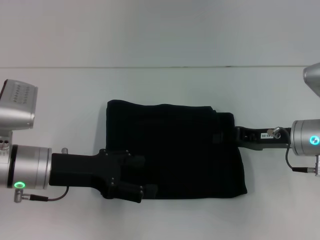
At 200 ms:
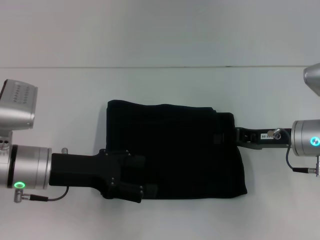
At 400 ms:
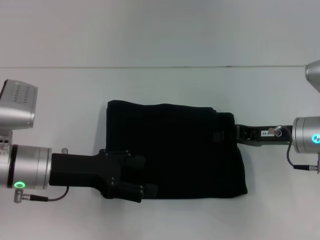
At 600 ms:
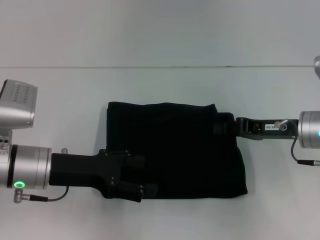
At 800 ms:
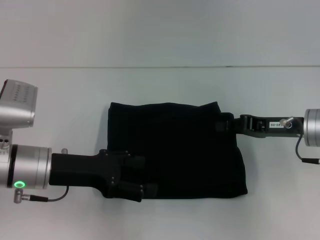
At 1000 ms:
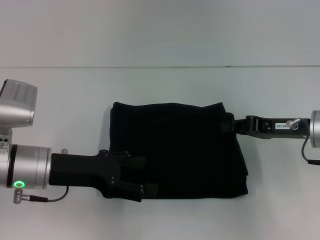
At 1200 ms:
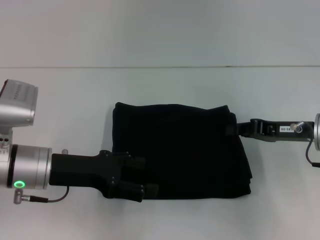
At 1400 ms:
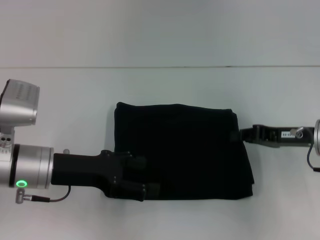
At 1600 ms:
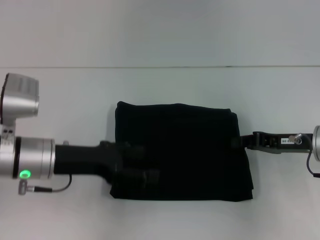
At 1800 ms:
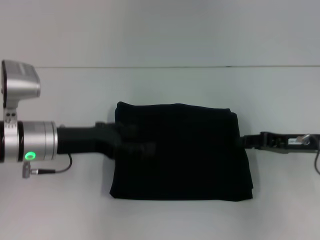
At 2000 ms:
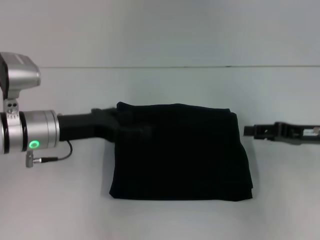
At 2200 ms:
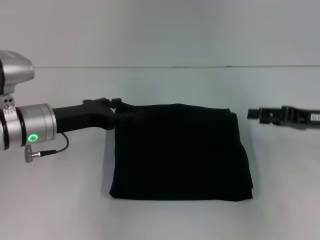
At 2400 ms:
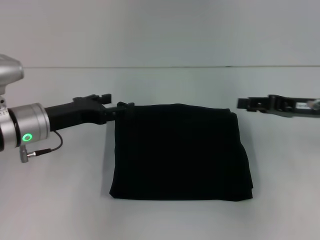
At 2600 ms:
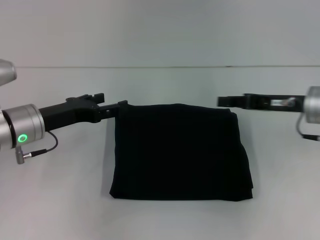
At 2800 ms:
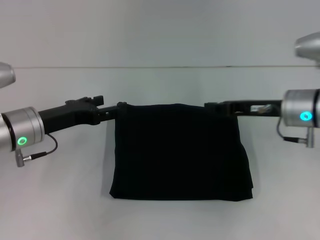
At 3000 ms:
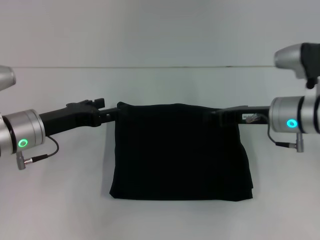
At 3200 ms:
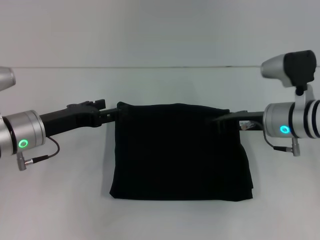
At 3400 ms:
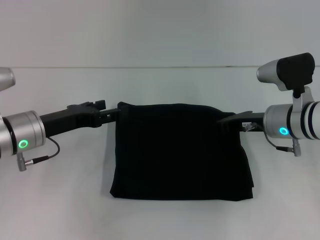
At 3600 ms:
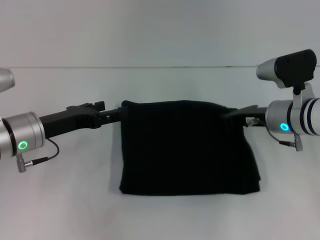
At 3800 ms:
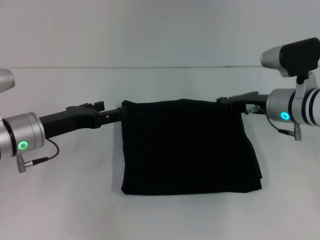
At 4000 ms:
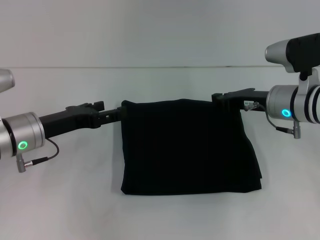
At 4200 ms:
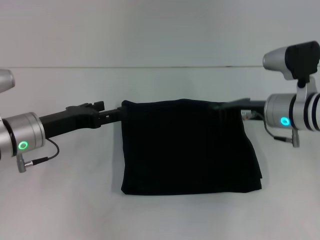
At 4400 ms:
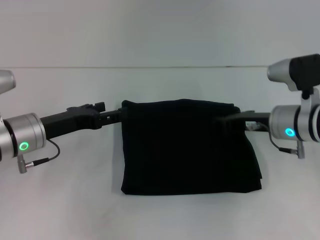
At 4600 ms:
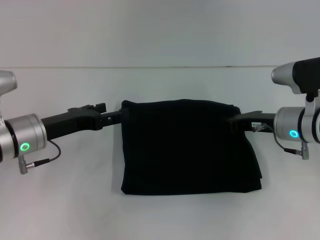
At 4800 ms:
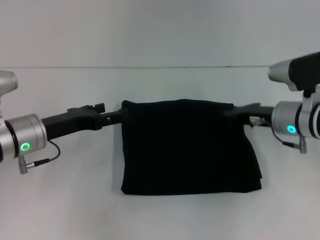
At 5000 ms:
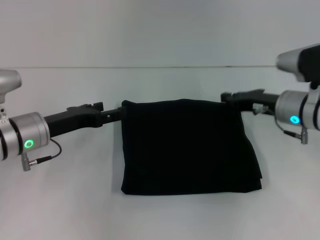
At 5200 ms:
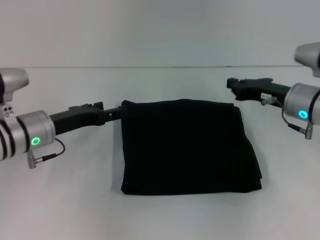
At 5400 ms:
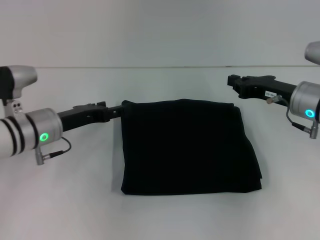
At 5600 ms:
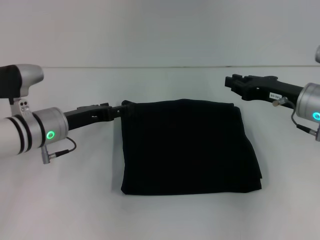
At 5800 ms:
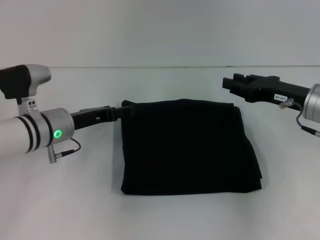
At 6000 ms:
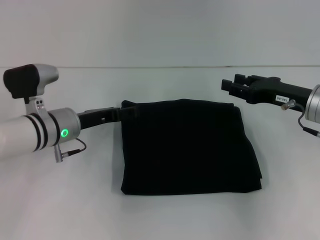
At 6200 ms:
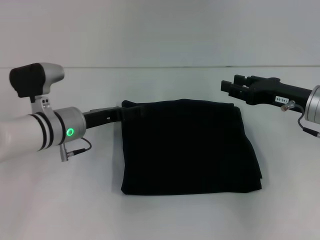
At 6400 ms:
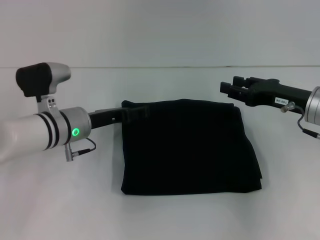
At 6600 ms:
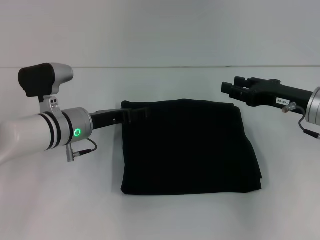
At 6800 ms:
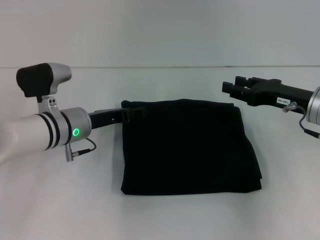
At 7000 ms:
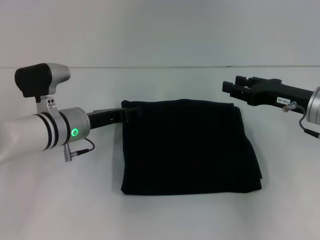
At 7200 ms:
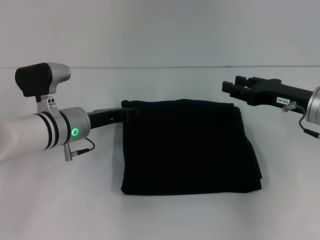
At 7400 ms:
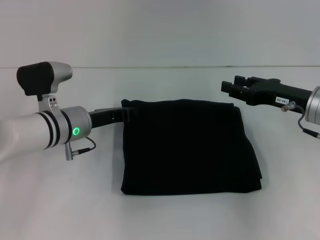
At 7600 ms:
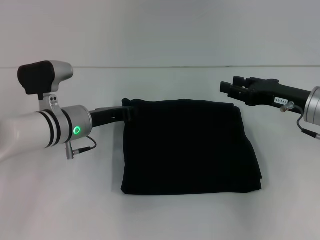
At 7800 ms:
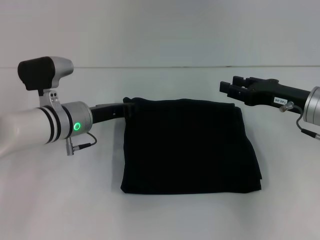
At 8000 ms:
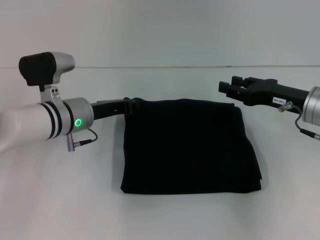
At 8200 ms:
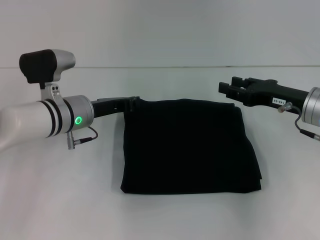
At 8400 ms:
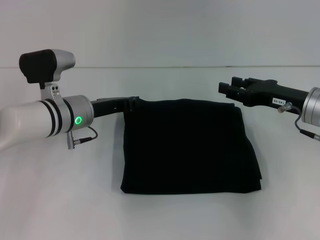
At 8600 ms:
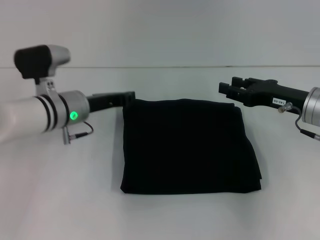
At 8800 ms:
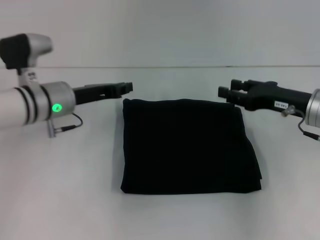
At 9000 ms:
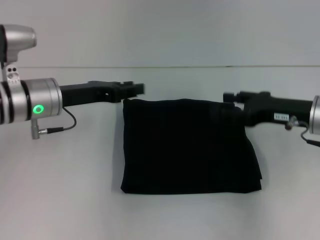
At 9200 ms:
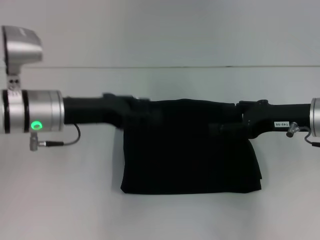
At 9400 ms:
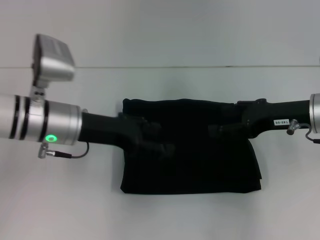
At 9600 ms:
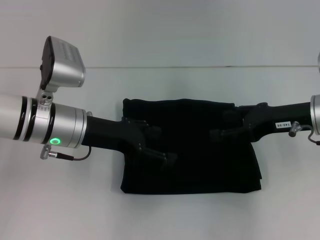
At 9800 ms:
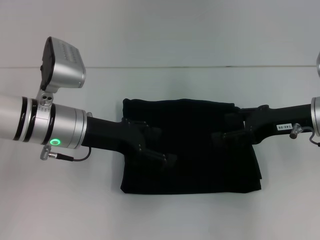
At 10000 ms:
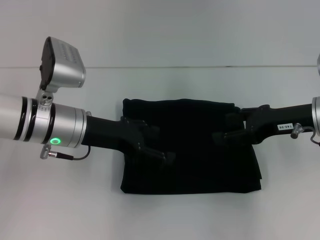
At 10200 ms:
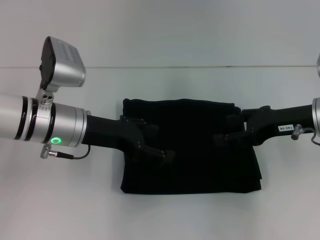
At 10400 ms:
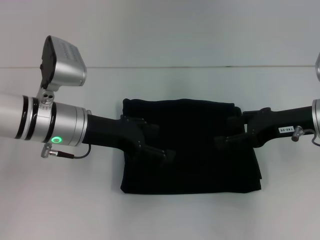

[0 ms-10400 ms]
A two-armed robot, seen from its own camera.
0 ms to 1400 ms: The right gripper closes its fingers.
1400 ms to 3000 ms: The left gripper moves approximately 5 cm; the right gripper heads to the left, covering some 5 cm, and opens, then closes again.
3000 ms to 4400 ms: The grippers make only small movements.
4400 ms to 6000 ms: The right gripper shifts by approximately 5 cm, and opens its fingers, while the left gripper shifts by approximately 5 cm.
6000 ms to 7400 ms: The left gripper closes.
7400 ms to 9000 ms: The left gripper travels upward by approximately 5 cm.
9000 ms to 10400 ms: The left gripper opens.

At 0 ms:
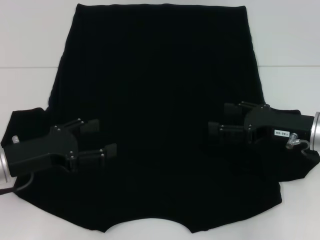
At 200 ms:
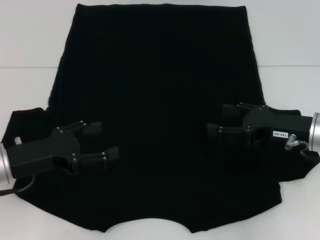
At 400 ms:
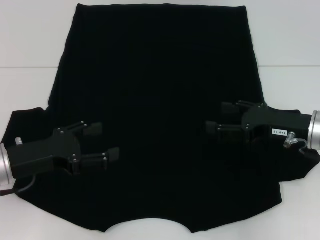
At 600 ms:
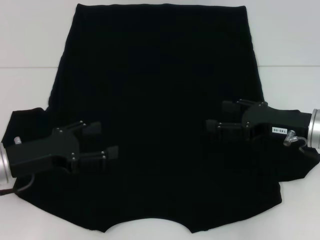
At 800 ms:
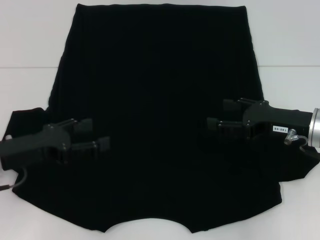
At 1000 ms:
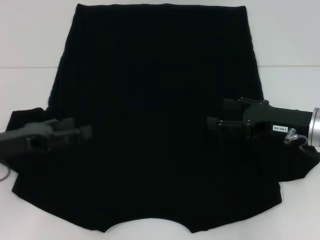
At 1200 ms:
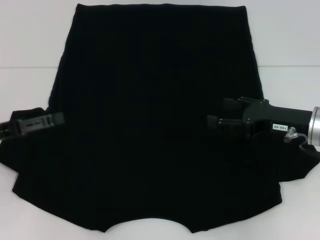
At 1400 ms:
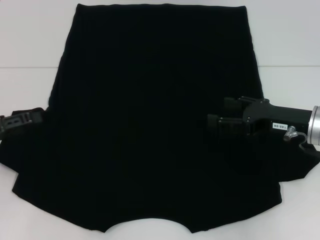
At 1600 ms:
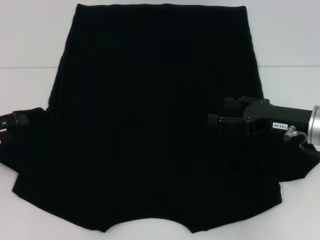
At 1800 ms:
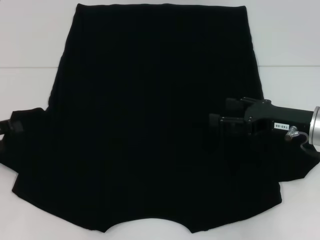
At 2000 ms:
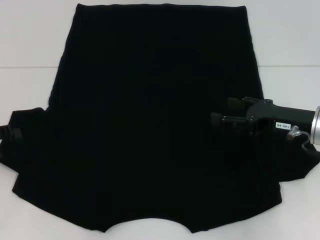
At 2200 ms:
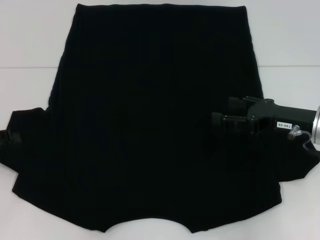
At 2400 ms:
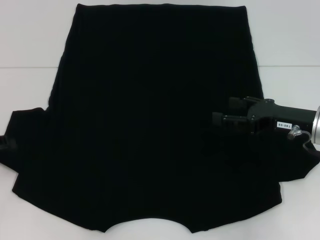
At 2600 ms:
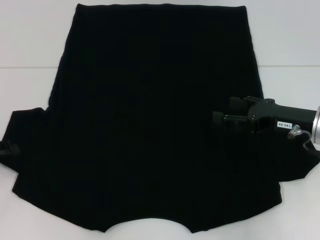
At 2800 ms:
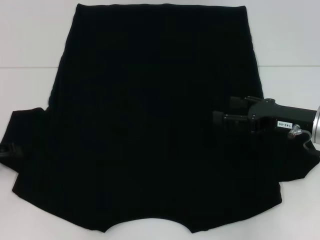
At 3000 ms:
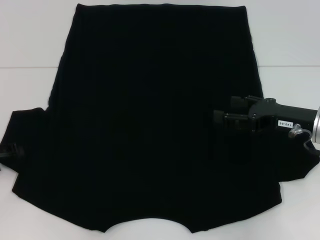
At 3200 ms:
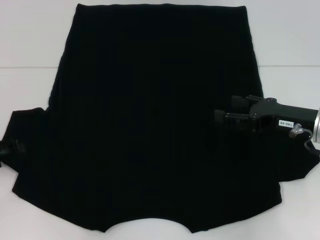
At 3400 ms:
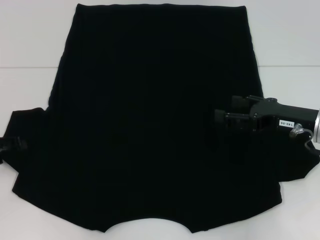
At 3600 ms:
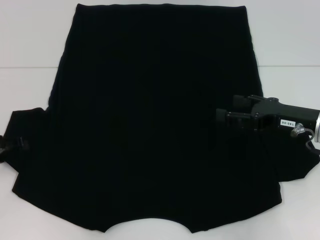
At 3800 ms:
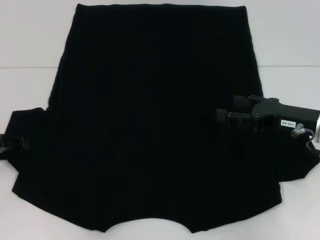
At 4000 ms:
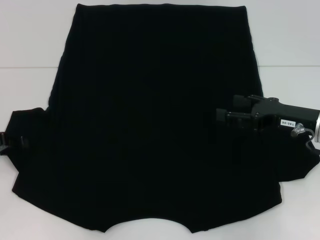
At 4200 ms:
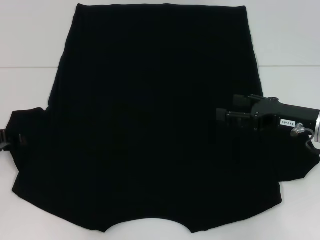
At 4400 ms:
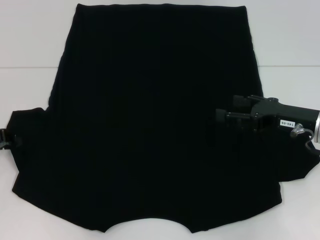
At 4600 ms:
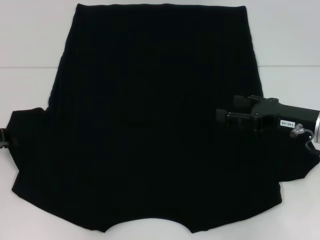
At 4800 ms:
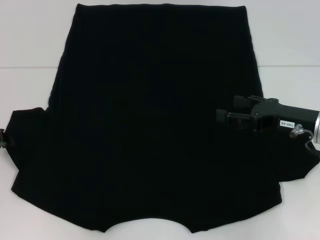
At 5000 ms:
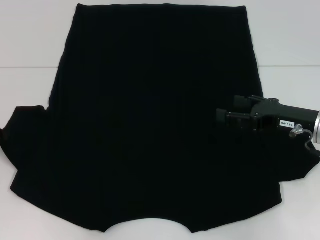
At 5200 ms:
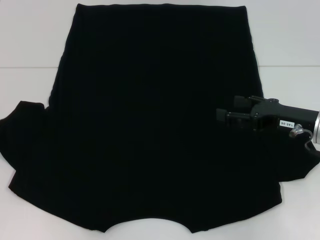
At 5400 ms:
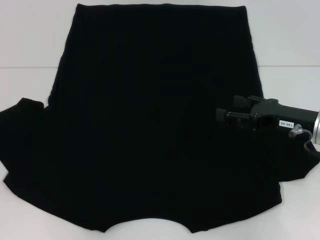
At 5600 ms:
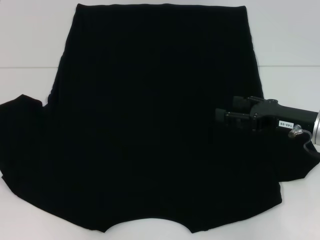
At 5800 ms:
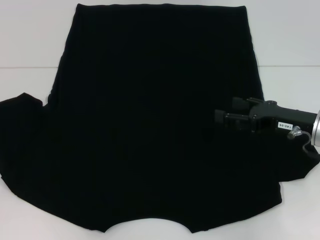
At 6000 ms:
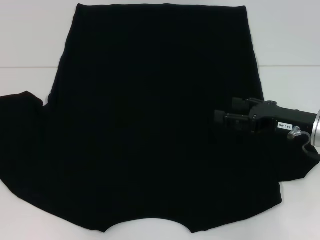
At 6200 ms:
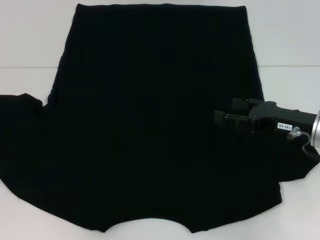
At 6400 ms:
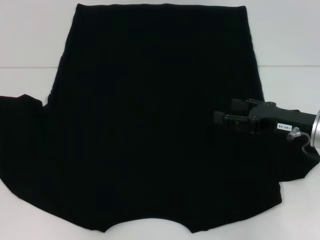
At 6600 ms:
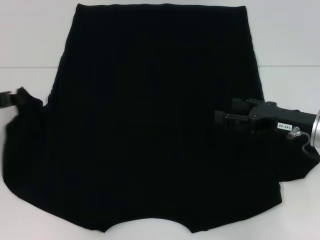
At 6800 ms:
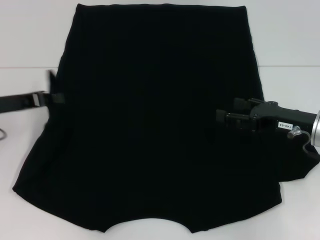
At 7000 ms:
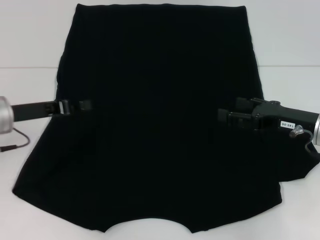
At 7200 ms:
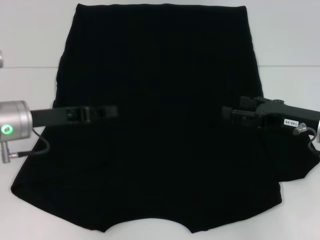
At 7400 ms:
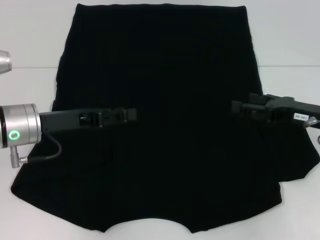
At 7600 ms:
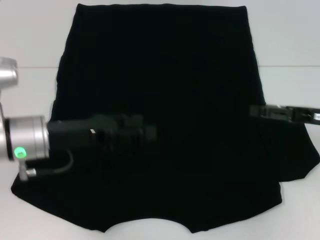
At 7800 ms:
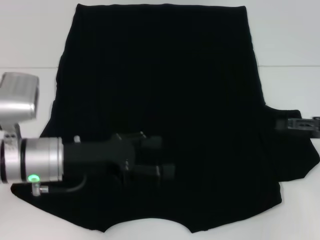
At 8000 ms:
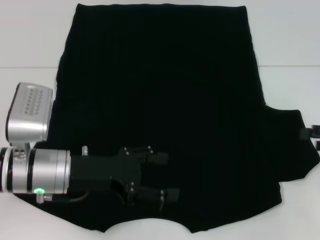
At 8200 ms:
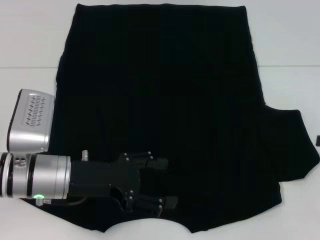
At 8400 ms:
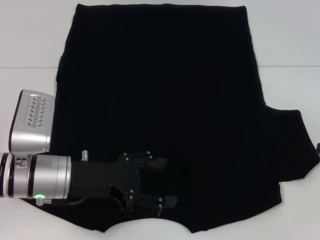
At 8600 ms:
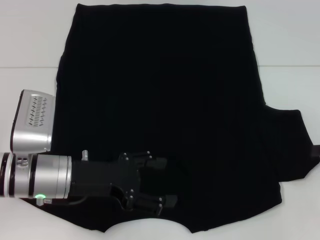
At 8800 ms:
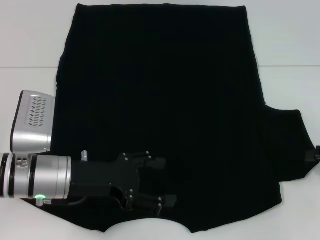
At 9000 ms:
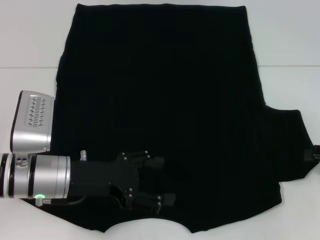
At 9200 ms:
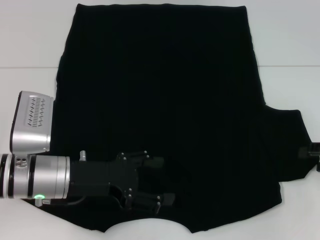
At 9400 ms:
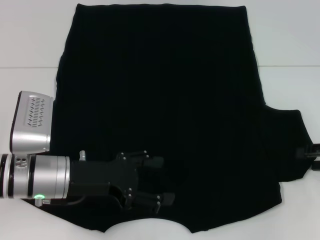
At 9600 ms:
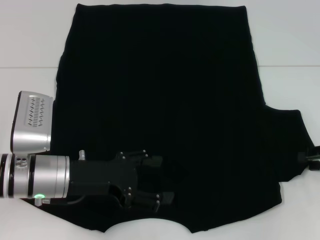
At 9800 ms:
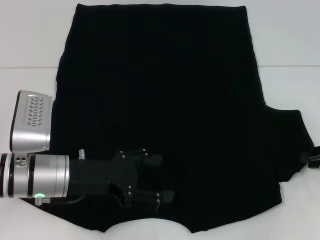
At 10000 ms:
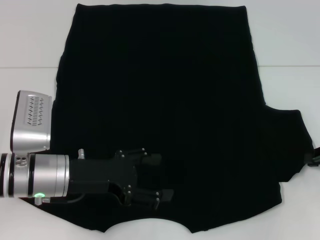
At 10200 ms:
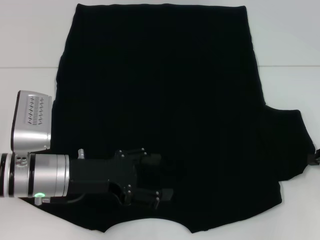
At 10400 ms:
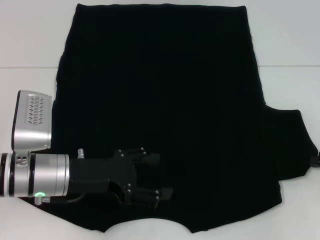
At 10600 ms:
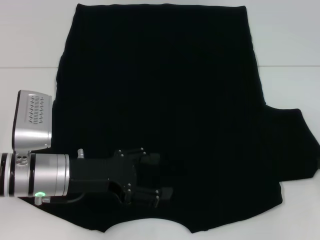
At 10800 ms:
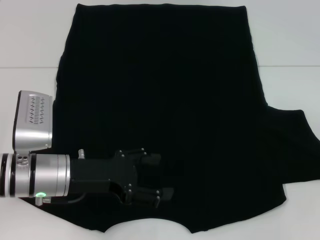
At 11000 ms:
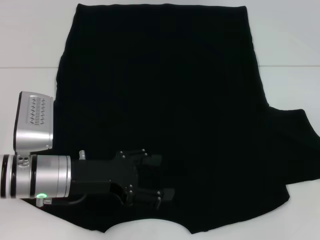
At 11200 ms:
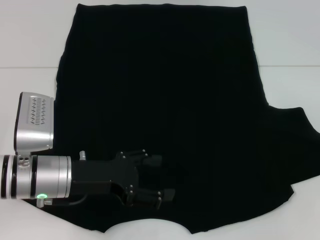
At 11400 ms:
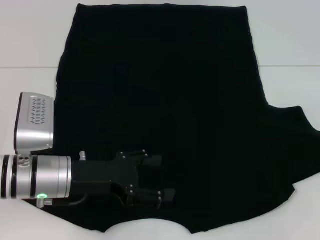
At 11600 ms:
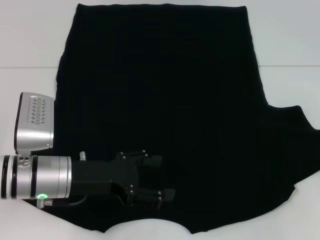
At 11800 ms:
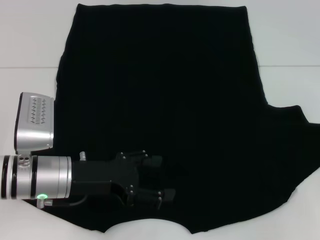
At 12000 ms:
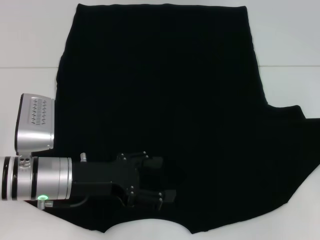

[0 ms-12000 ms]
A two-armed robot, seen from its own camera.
Step, 0 ms to 7000 ms: Fold the bottom left sleeve with your left hand.
0 ms to 1600 ms: The left gripper goes some 10 cm to the left.
1600 ms to 3000 ms: The grippers make only small movements.
3000 ms to 4400 ms: The left gripper closes up.
4400 ms to 6000 ms: The left gripper closes up.
6000 ms to 7600 ms: The right gripper shifts approximately 5 cm to the right. Meanwhile the left gripper moves to the right, approximately 15 cm, and opens.
7600 ms to 9000 ms: The right gripper heads to the right, covering about 10 cm. The left gripper ends up roughly 5 cm from where it was, and opens.
10400 ms to 12000 ms: The right gripper changes place by approximately 5 cm.
